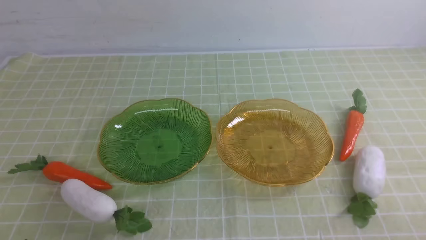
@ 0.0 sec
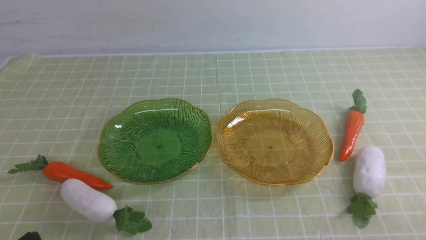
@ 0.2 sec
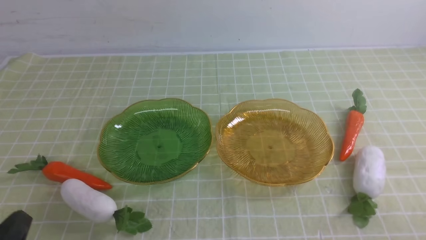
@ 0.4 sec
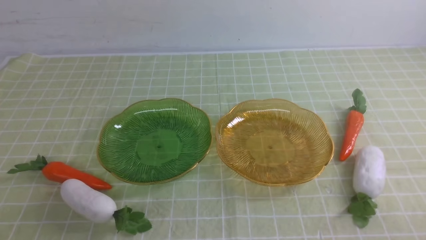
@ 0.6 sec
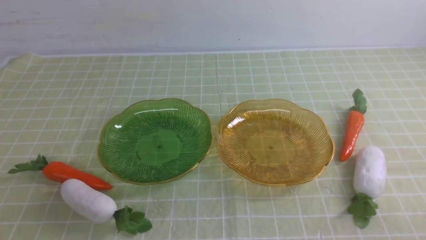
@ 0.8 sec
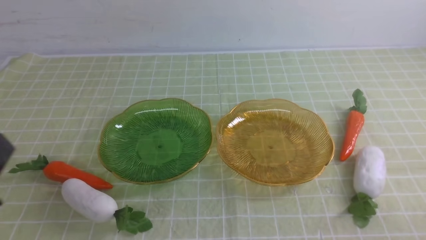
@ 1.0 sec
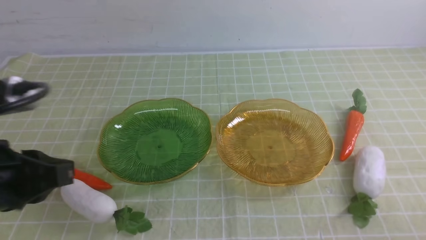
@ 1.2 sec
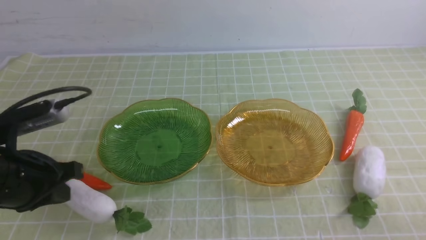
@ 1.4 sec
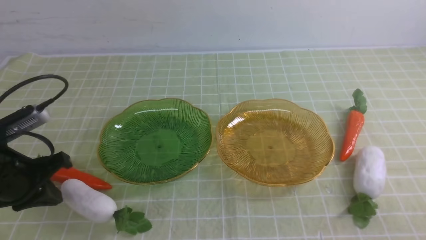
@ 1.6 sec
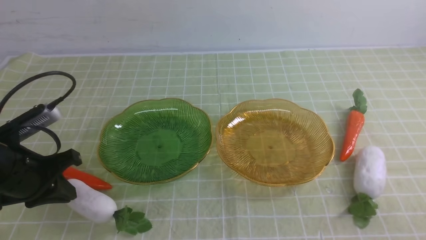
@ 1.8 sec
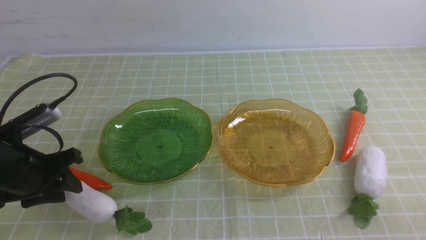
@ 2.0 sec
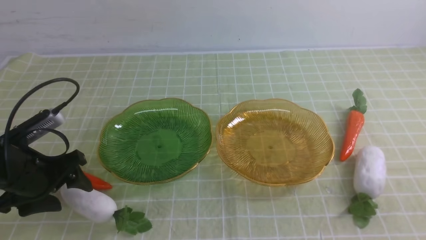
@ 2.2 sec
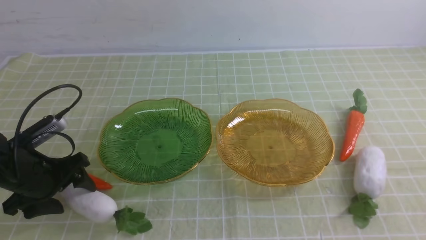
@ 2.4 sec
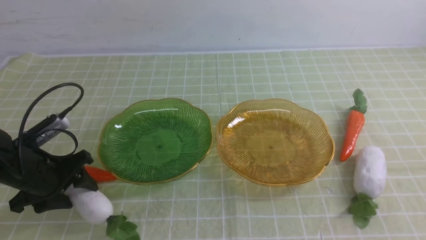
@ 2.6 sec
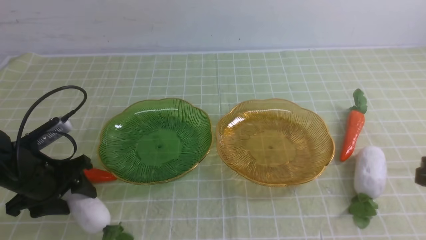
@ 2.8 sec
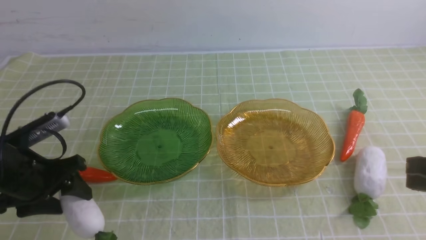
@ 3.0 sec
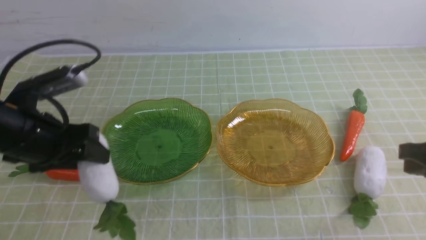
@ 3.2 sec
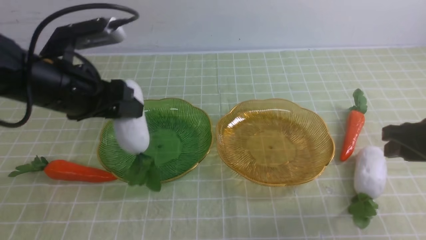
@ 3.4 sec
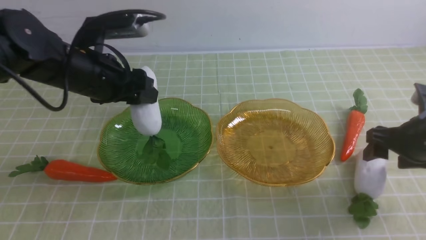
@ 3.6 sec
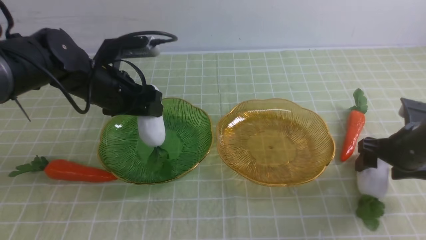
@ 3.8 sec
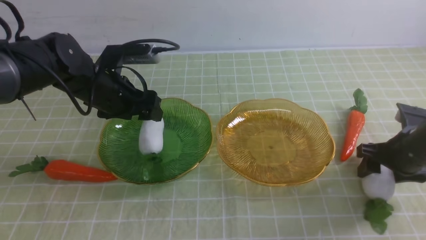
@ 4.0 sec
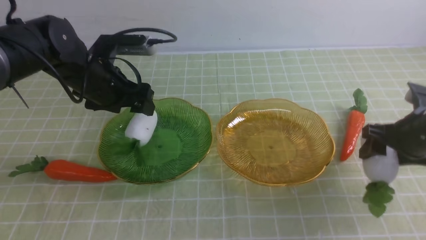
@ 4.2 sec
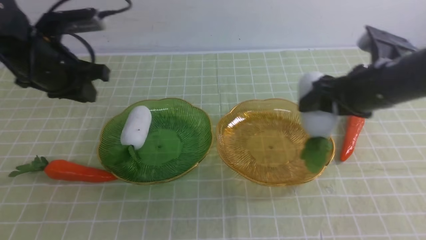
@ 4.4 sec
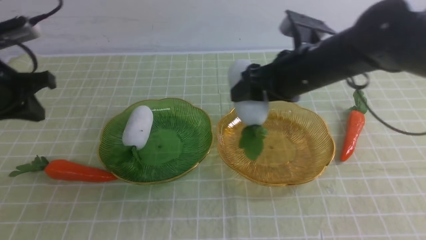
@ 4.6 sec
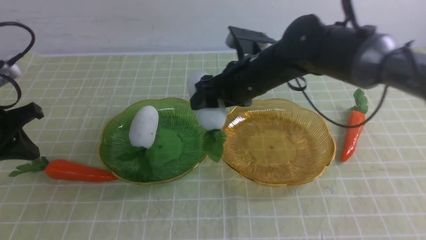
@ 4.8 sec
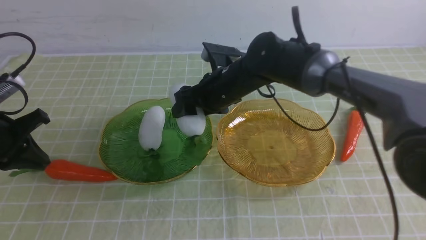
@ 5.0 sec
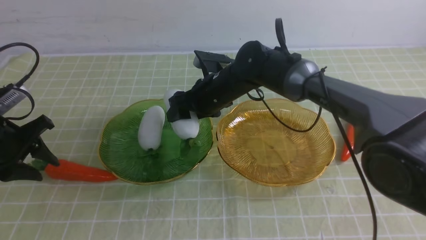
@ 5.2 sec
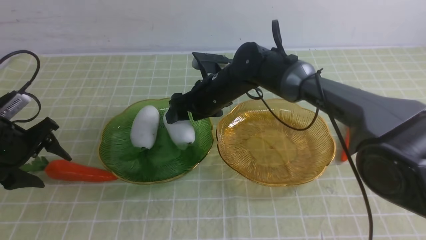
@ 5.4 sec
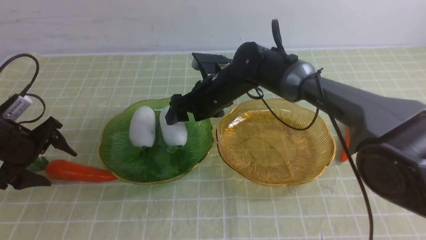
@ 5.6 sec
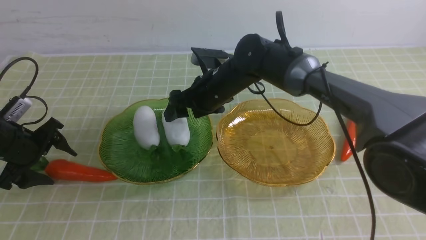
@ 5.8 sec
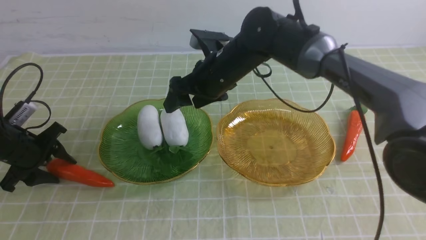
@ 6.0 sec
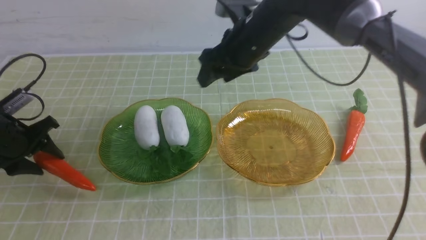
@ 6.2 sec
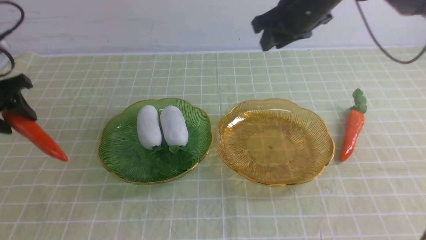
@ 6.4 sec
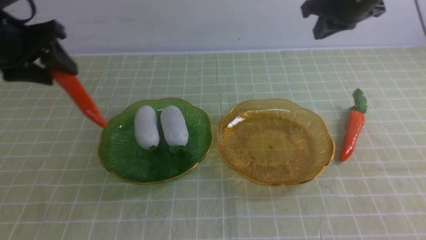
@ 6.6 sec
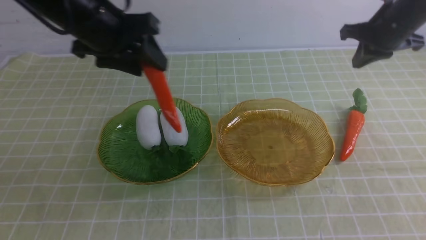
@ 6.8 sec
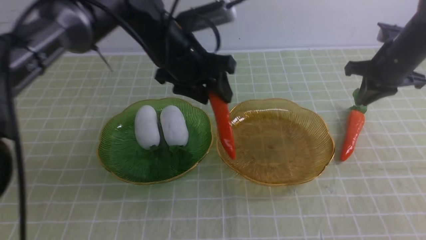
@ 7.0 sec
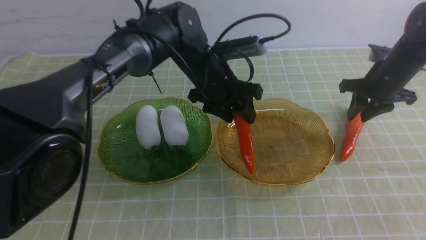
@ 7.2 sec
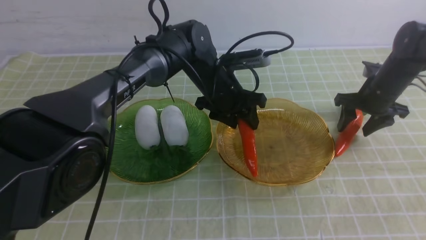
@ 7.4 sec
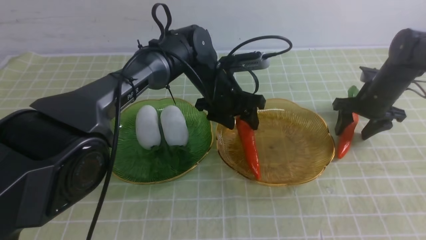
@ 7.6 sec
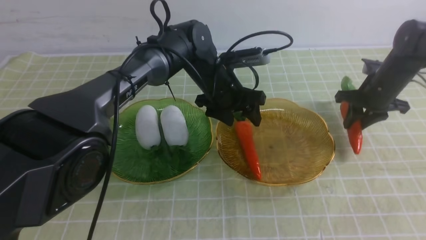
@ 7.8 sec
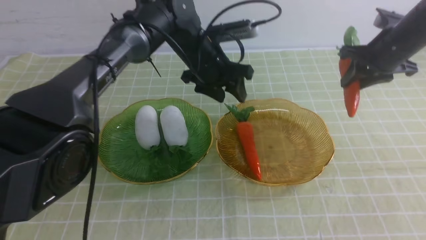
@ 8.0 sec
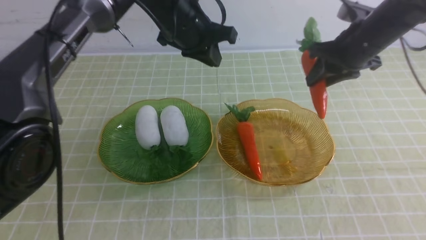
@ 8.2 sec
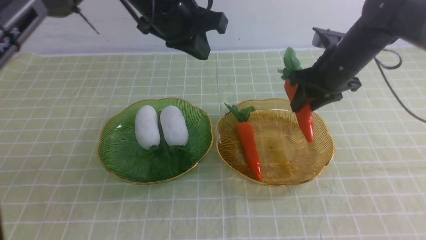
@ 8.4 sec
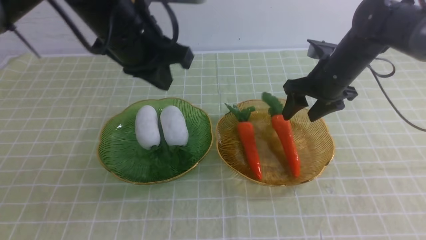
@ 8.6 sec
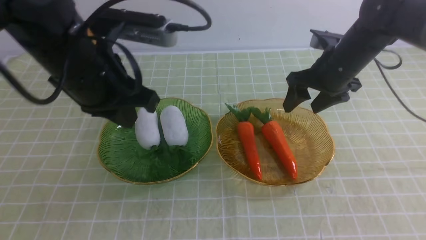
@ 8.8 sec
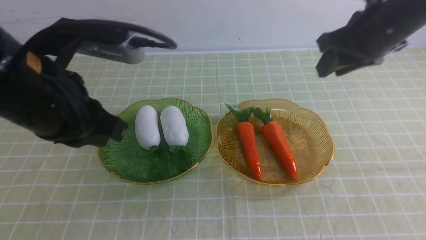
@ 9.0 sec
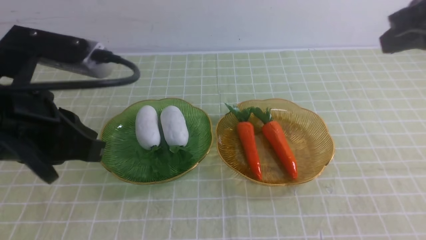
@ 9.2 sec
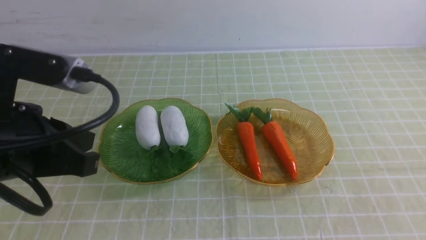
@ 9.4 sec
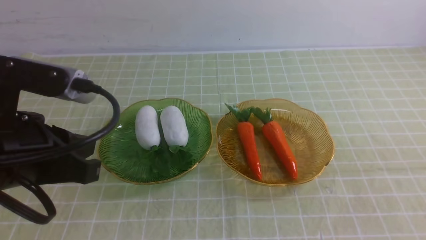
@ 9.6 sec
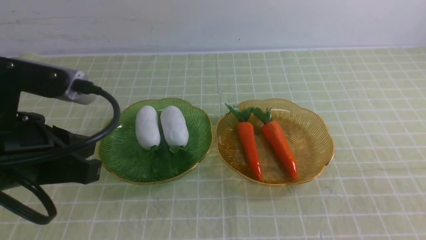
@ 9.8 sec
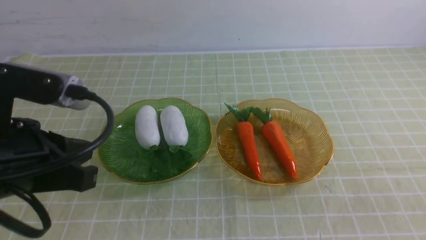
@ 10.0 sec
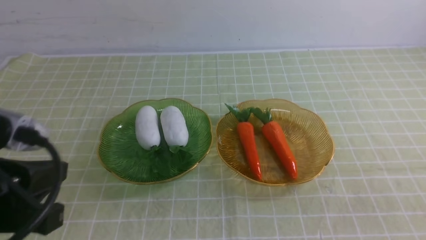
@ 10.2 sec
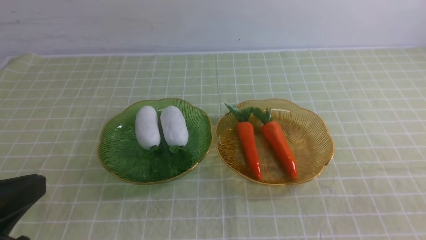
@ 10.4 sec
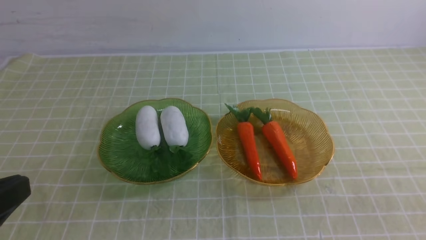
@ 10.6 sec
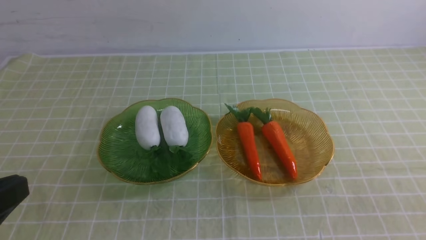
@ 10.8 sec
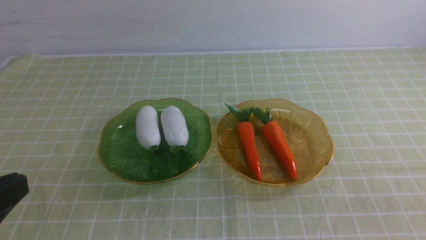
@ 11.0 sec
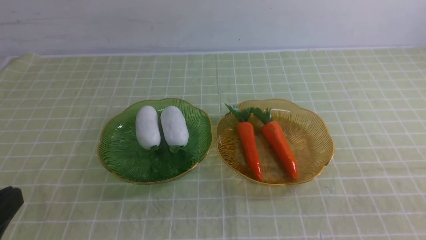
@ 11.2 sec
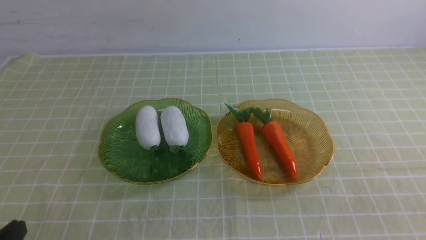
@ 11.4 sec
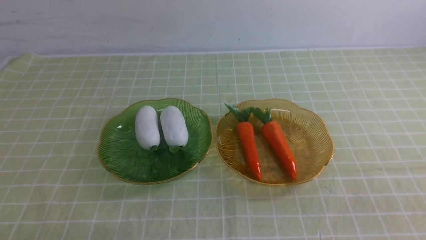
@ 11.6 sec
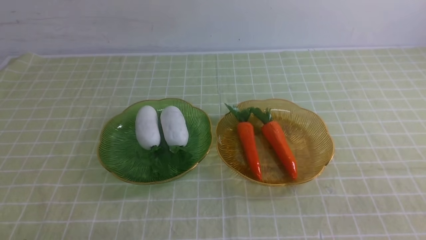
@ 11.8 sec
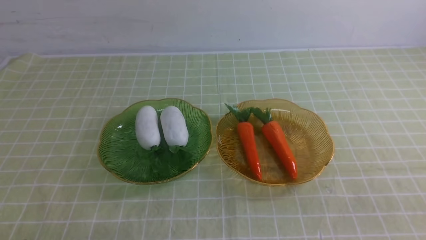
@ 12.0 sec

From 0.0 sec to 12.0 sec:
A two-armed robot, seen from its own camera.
Step, from 0.0 sec to 4.0 sec: use the left arm to grab a radish and put it into the left plate.
Step, from 4.2 sec to 5.6 sec: use the right arm to grab a radish and put it into the left plate.
Step, from 5.8 sec to 7.6 sec: use the left arm to grab a carrot and put it into the right plate.
Step, from 7.8 sec to 8.4 sec: use the right arm to grab a carrot and put it into the right plate.
From 0.0 sec to 1.6 sec: The left gripper travels forward by roughly 20 cm.
From 1.6 sec to 3.0 sec: The left gripper opens; the right gripper moves forward and upward, roughly 15 cm.
From 3.0 sec to 4.4 sec: The right gripper shifts about 15 cm forward and to the left, and opens up, while the left gripper travels forward and upward by approximately 10 cm, and closes its fingers.
From 4.4 sec to 6.0 sec: The left gripper is displaced downward and to the left by approximately 15 cm, and opens. The right gripper shifts about 20 cm to the left and forward.
From 6.0 sec to 7.6 sec: The grippers both shift to the right by about 30 cm. The right gripper closes and opens again.
From 7.6 sec to 9.0 sec: The right gripper shifts roughly 25 cm upward, backward and to the left, while the left gripper heads backward, to the left and upward, covering about 30 cm, and closes up.
From 9.0 sec to 10.4 sec: The left gripper moves backward and to the left, roughly 15 cm. Meanwhile the right gripper heads backward, covering approximately 30 cm, and closes its fingers.
From 10.4 sec to 12.0 sec: The left gripper goes about 15 cm downward.

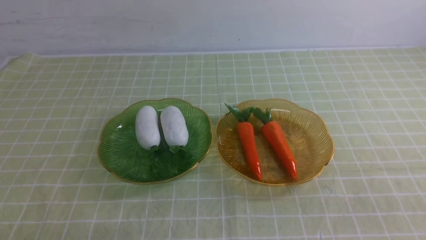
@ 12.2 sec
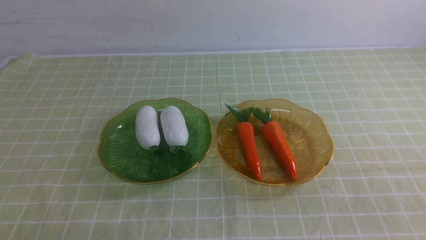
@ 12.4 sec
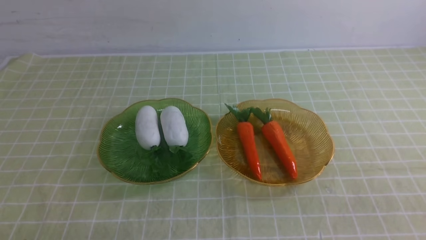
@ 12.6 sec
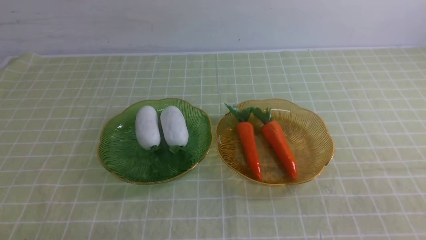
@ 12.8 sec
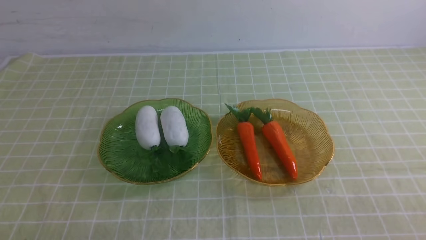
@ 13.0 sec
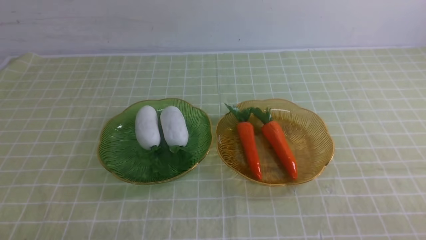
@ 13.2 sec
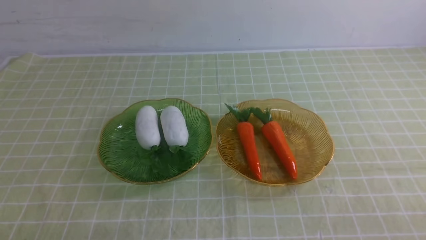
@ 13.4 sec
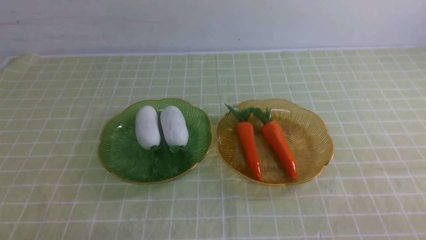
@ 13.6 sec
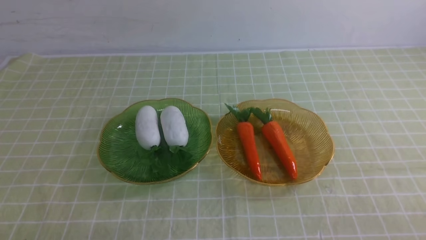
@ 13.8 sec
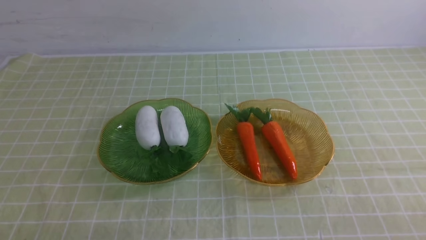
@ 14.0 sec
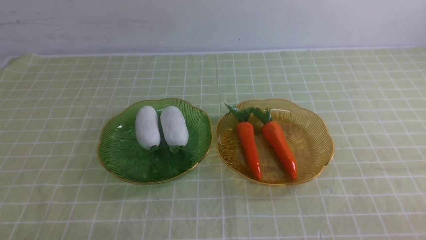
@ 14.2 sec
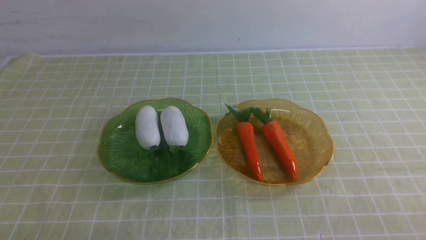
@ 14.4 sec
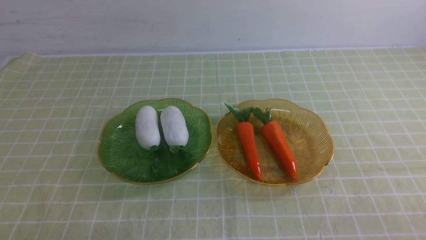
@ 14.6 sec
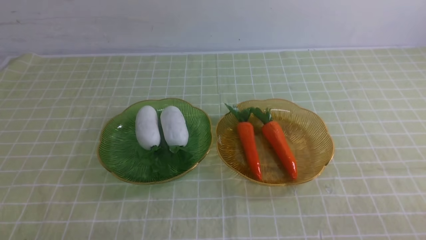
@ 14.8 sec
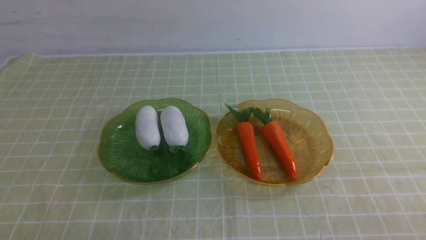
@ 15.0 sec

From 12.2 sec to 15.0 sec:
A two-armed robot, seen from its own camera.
From 13.6 sec to 15.0 sec: The two grippers keep their place.
